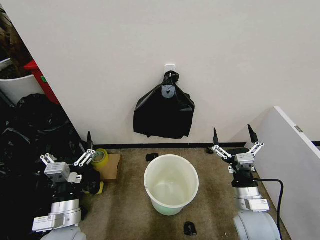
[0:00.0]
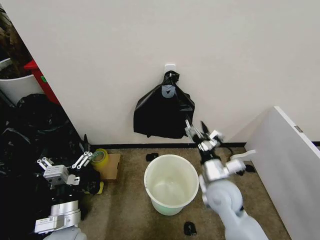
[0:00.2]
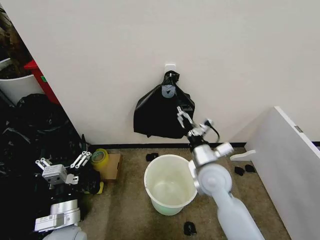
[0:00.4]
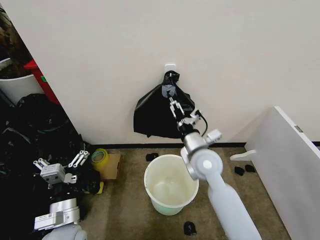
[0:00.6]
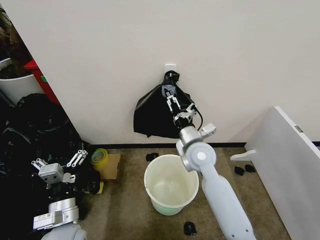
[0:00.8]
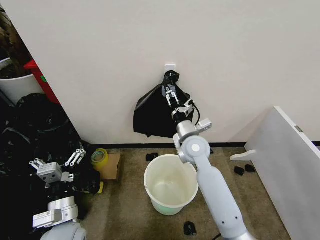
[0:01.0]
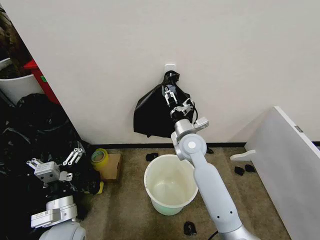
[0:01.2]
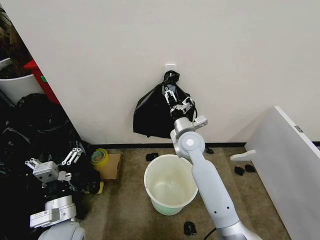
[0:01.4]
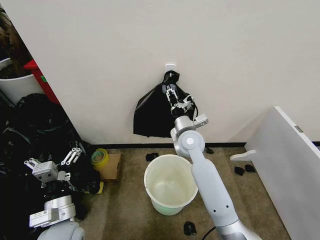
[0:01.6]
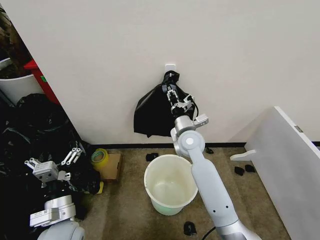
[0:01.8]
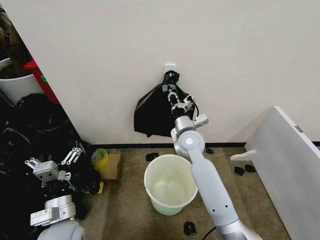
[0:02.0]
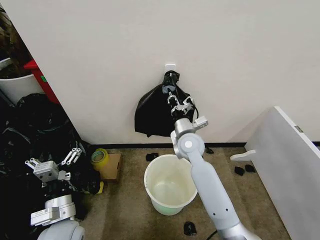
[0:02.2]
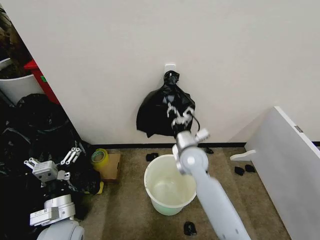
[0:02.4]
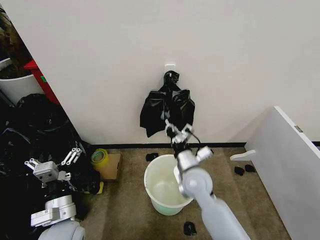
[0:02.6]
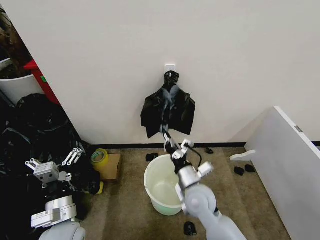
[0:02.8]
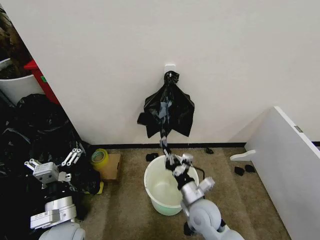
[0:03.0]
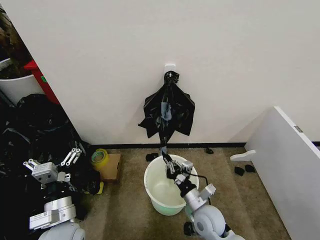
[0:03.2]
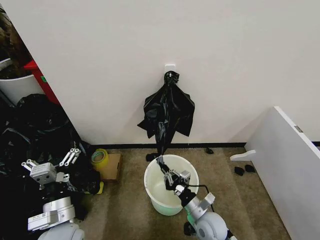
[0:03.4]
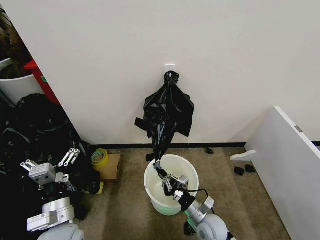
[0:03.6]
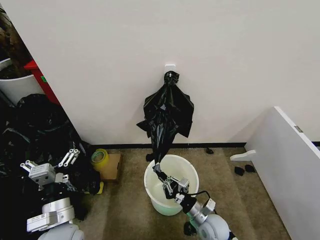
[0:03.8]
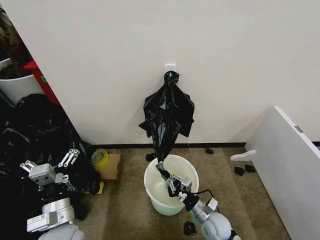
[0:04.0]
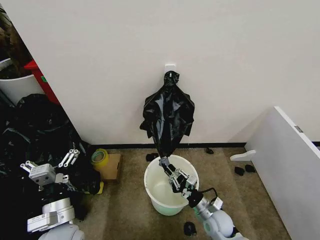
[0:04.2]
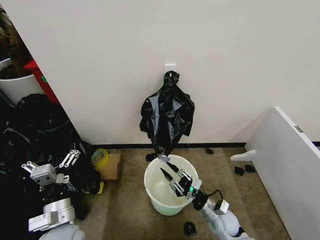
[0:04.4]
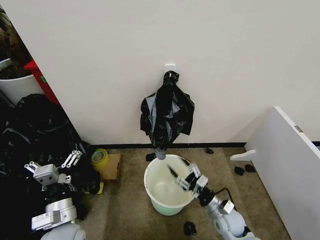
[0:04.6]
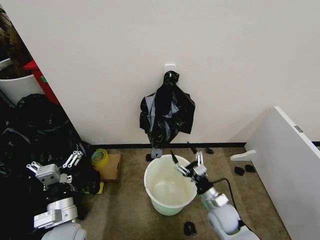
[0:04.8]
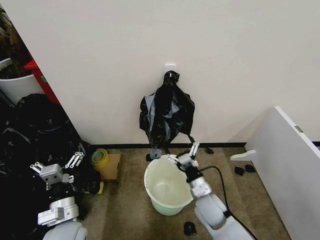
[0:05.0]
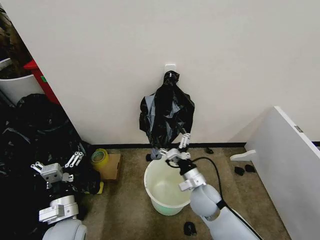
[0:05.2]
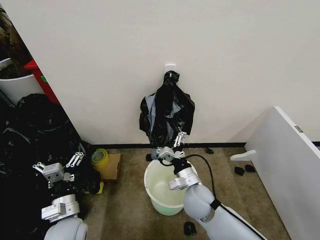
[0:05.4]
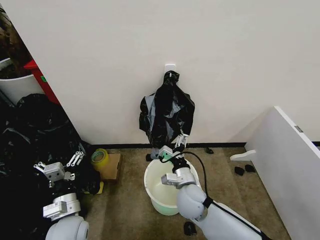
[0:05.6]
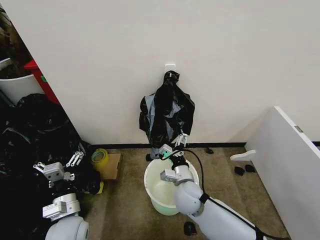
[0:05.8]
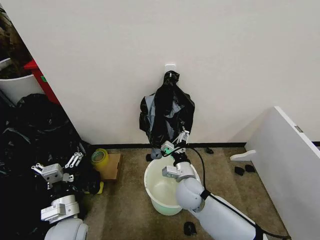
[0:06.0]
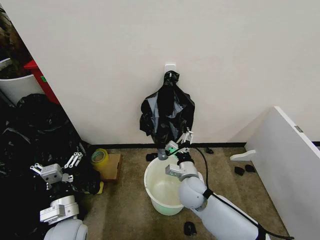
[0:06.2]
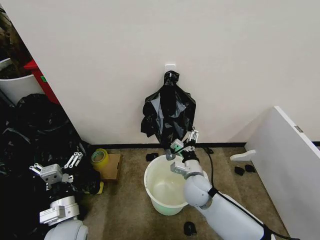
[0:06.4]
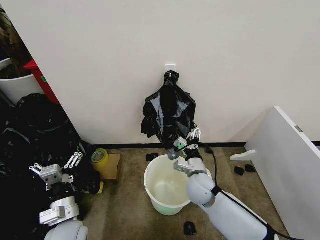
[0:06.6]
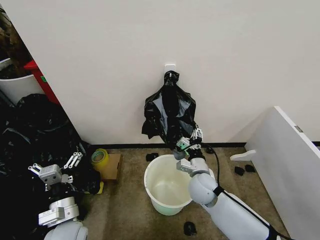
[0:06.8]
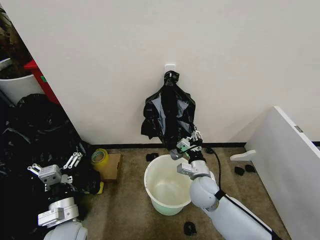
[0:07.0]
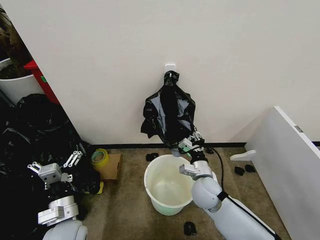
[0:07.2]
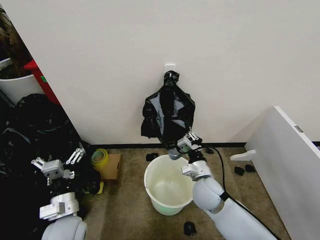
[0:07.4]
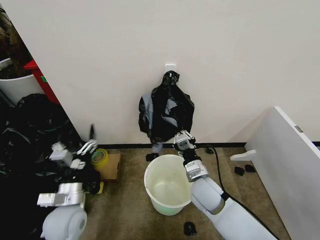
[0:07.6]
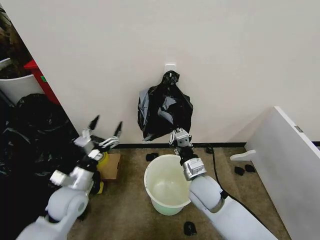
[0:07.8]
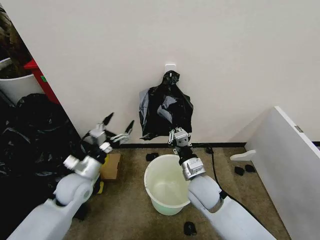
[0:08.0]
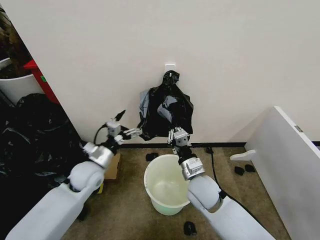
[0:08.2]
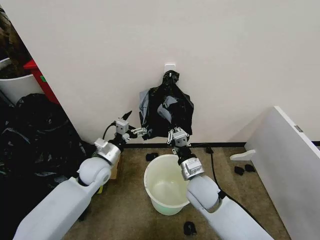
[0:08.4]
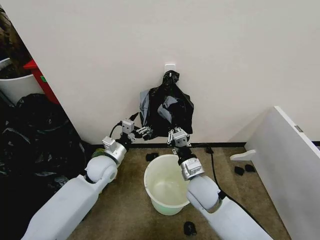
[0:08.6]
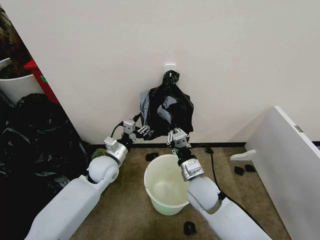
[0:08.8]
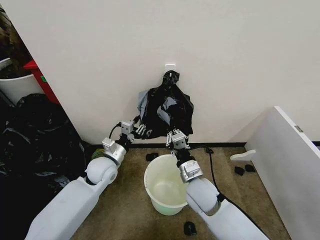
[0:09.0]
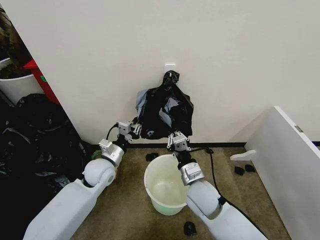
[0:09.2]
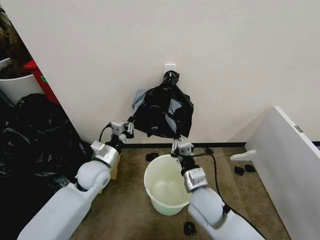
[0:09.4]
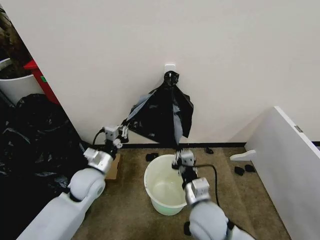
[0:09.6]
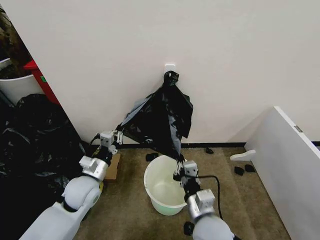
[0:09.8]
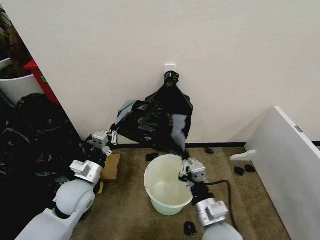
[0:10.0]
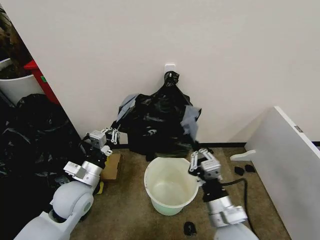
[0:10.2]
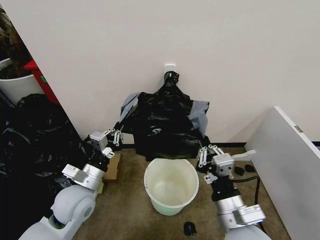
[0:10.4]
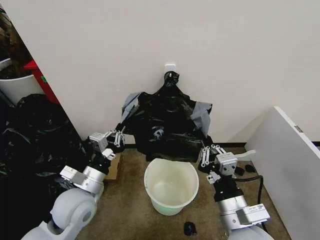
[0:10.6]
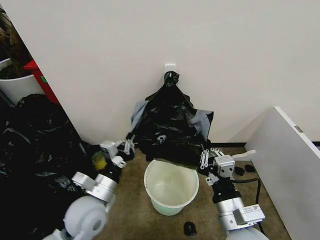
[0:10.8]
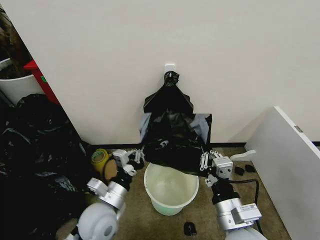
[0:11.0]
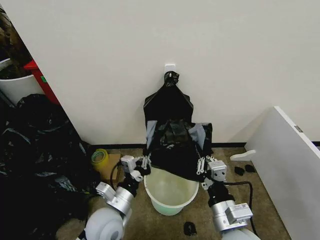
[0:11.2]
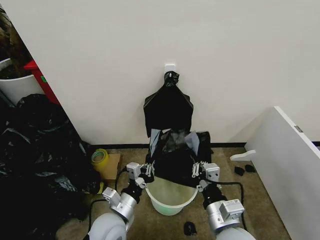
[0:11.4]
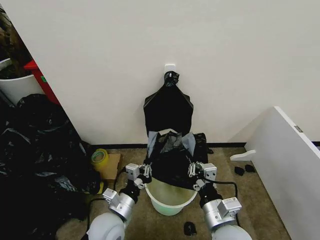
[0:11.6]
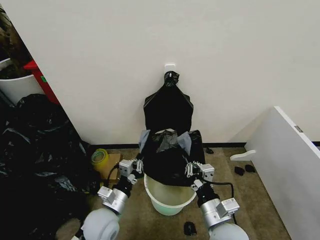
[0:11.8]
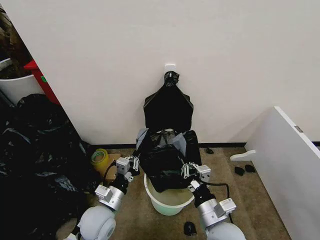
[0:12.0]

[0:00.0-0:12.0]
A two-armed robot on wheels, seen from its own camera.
Task of the whole recording: Place the garbage bag over the trash bin.
0:01.6 to 0:03.0: The right gripper goes some 25 cm backward and downward, and closes up.
0:03.0 to 0:04.4: The right gripper heads to the right and downward, covering roughly 15 cm, and opens its fingers.
0:04.4 to 0:06.0: The right gripper travels to the left, upward and forward by approximately 20 cm, and opens.
0:06.0 to 0:07.6: The right gripper moves roughly 5 cm, and closes up.
0:07.6 to 0:09.0: The left gripper moves forward, about 15 cm, and closes its fingers.
0:09.0 to 0:10.4: Both grippers travel together backward, some 10 cm.
0:10.4 to 0:12.0: The right gripper shifts approximately 5 cm downward; the left gripper goes approximately 10 cm downward and to the right.

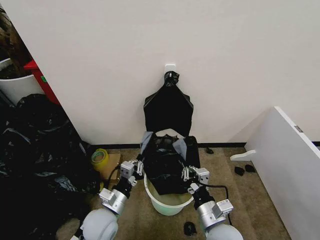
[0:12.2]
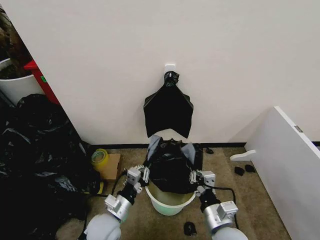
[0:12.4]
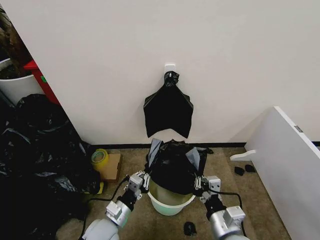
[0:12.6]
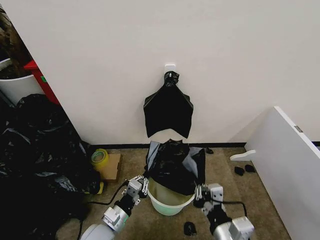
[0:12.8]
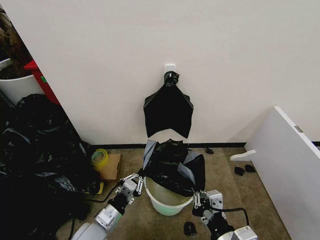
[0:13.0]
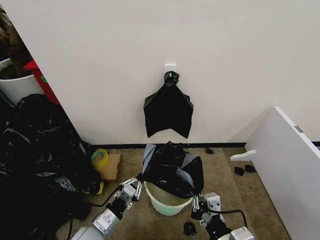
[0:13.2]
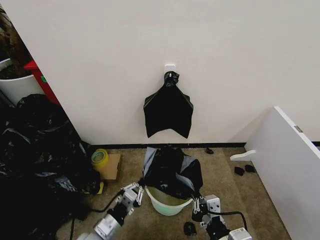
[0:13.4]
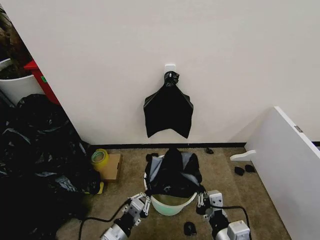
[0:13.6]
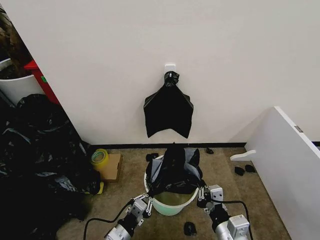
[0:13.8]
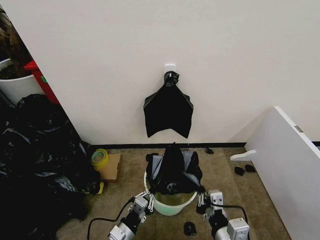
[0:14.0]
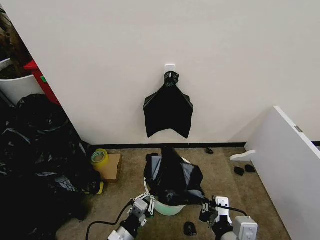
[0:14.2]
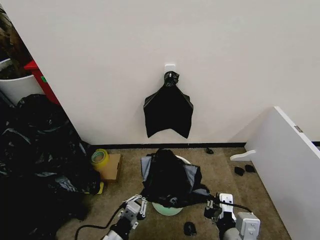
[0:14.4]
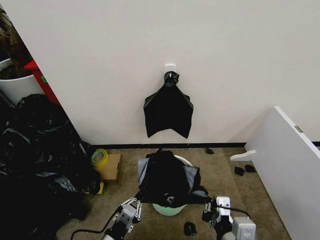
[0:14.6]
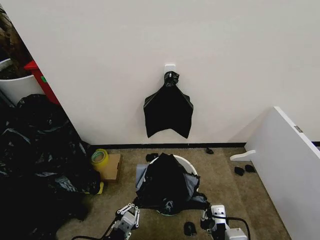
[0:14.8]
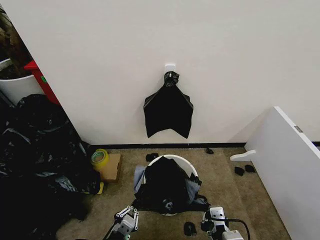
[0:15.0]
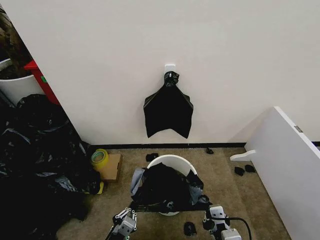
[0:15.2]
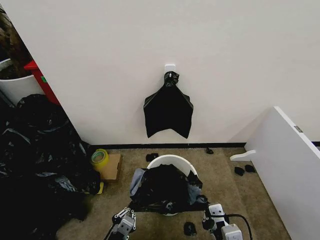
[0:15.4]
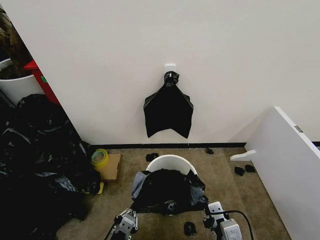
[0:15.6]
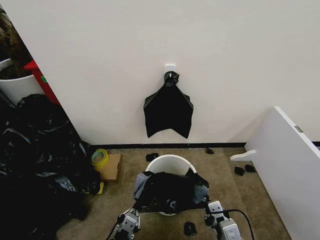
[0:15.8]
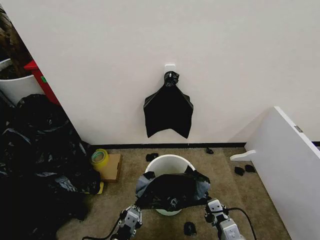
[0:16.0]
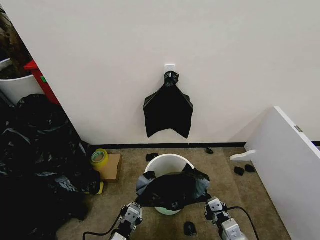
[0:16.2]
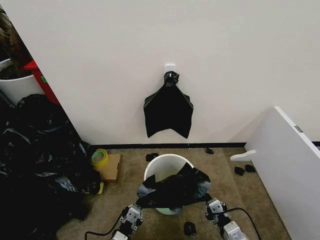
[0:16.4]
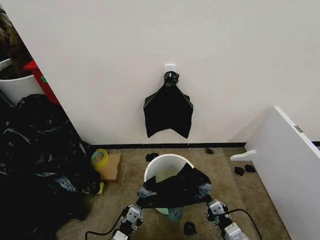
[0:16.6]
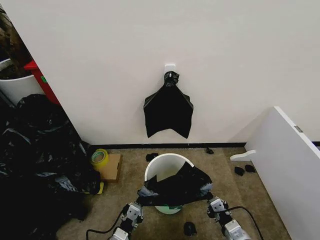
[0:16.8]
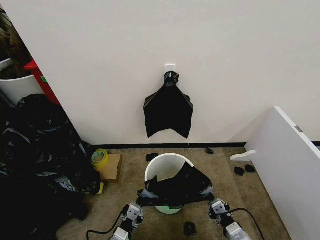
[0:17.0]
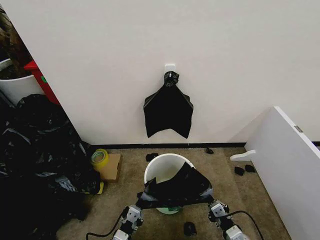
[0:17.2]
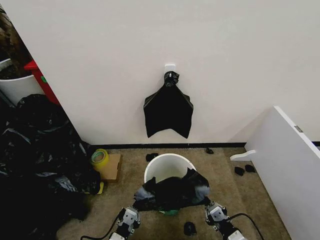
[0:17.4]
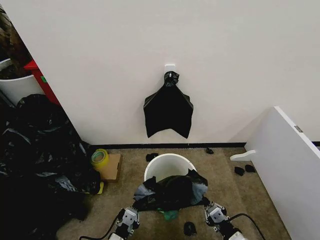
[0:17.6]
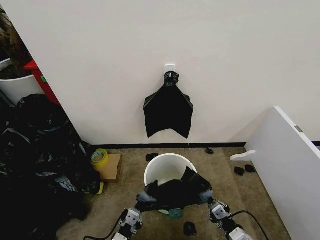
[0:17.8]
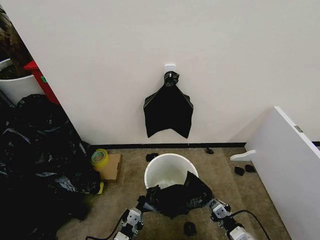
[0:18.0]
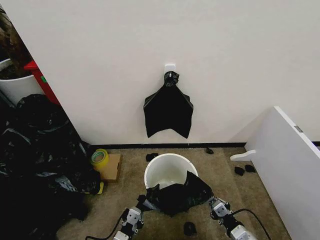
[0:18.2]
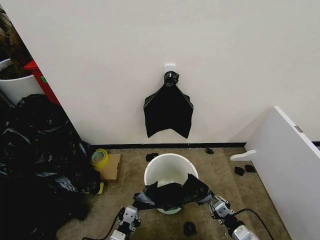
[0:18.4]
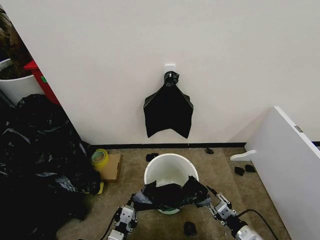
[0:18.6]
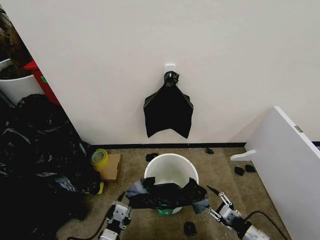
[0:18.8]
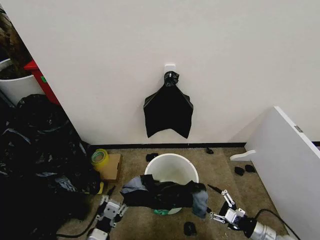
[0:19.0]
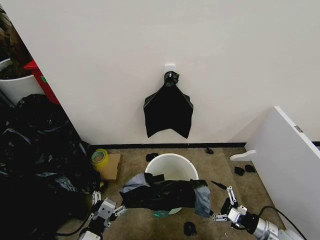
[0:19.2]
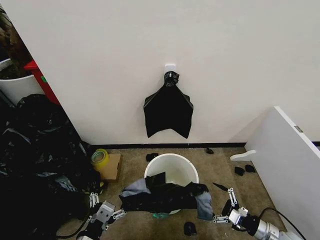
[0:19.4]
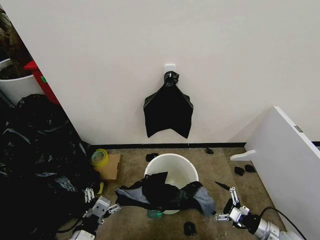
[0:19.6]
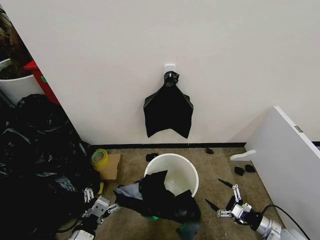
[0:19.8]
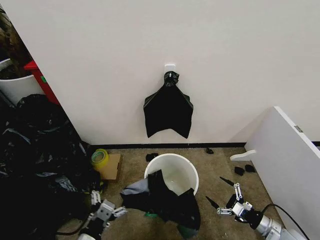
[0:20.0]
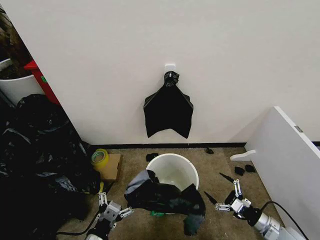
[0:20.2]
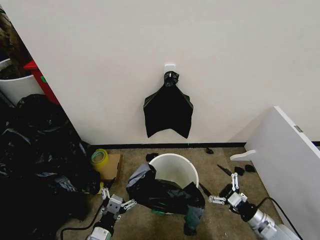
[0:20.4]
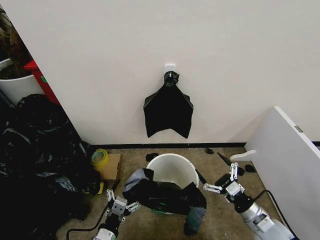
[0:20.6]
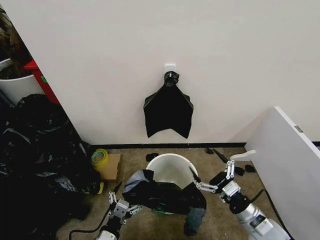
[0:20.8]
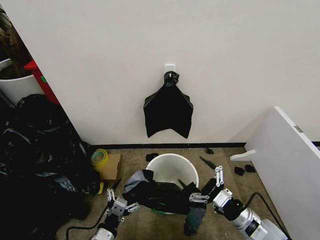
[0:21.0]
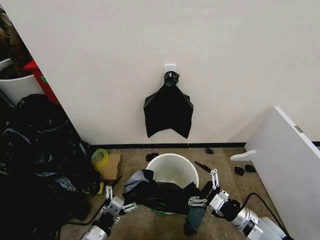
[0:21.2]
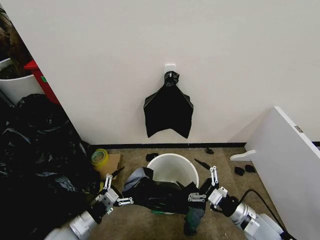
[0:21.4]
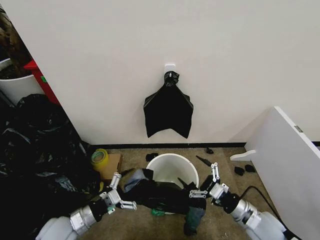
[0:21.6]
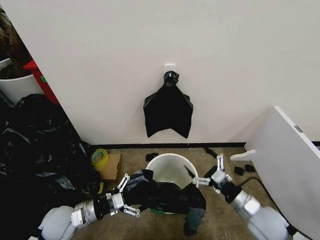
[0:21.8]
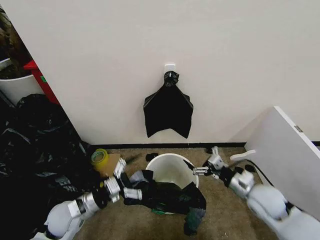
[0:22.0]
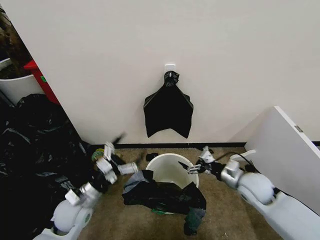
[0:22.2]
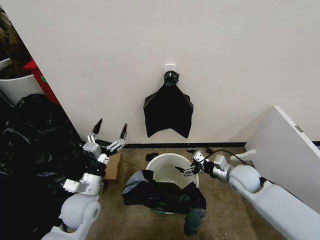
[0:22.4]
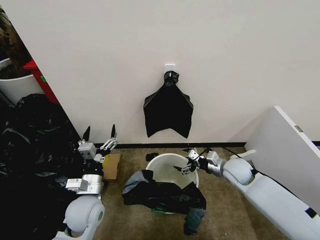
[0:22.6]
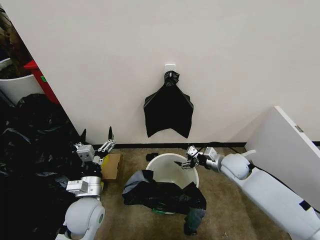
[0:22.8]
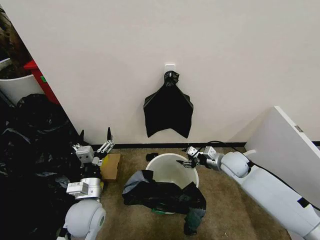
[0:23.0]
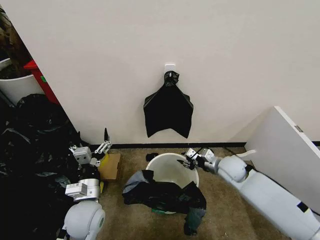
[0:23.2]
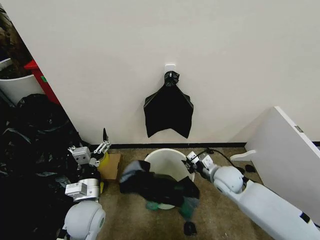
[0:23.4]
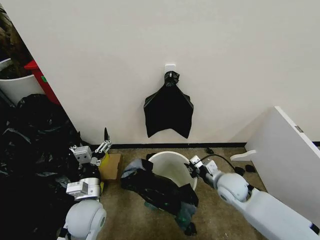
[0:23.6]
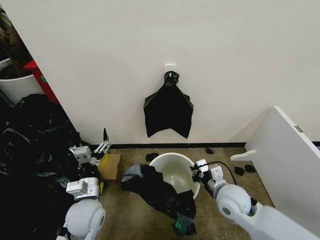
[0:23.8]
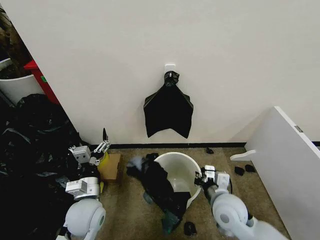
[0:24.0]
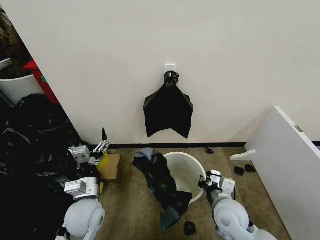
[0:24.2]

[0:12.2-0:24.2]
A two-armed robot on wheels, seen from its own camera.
Task of the whole recording: Place the garbage bag over the trash bin.
0:12.2 to 0:13.8: The right gripper heads backward, covering roughly 5 cm. Meanwhile the left gripper heads backward and downward, covering some 10 cm.
0:13.8 to 0:15.2: The left gripper heads backward, covering approximately 5 cm.
0:15.2 to 0:16.6: The left gripper moves about 5 cm. The right gripper travels downward and to the right by some 10 cm.
0:16.6 to 0:18.2: The grippers make only small movements.
0:18.2 to 0:19.8: The left gripper heads upward and to the left, covering approximately 10 cm, and opens up, while the right gripper is displaced to the right by approximately 15 cm, and opens up.
0:19.8 to 0:21.2: The right gripper moves to the left and upward, roughly 15 cm. Meanwhile the left gripper heads downward, covering some 5 cm.
0:21.2 to 0:22.6: The left gripper goes about 15 cm forward and upward. The right gripper shifts roughly 20 cm forward.
0:22.6 to 0:24.2: The right gripper heads backward and to the left, covering approximately 15 cm, and closes.
